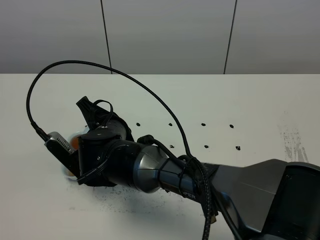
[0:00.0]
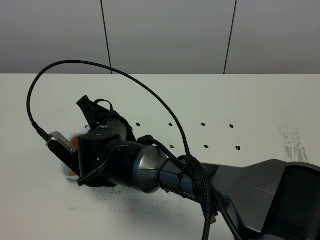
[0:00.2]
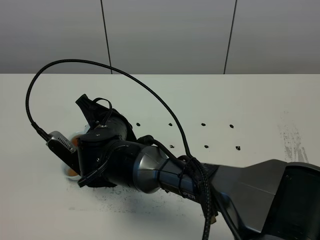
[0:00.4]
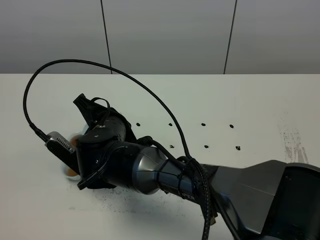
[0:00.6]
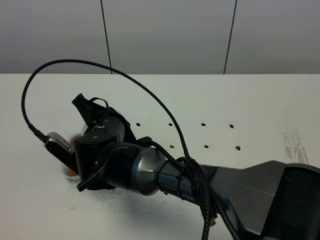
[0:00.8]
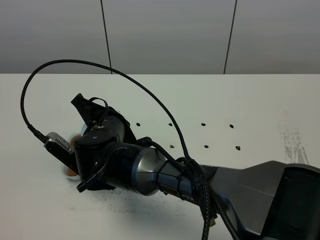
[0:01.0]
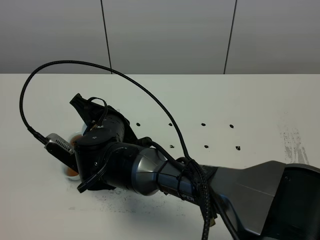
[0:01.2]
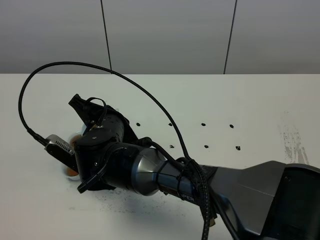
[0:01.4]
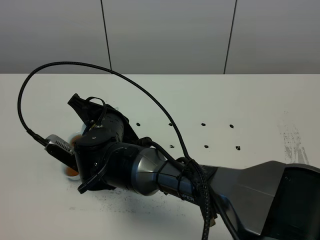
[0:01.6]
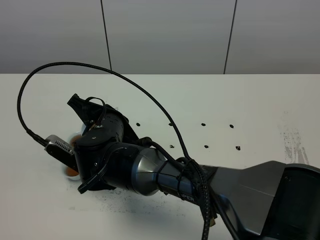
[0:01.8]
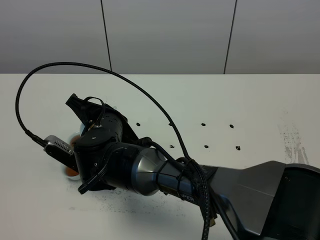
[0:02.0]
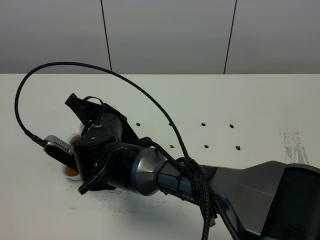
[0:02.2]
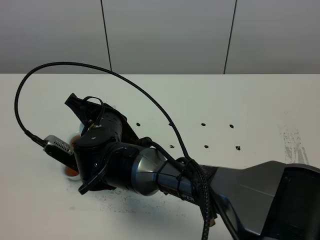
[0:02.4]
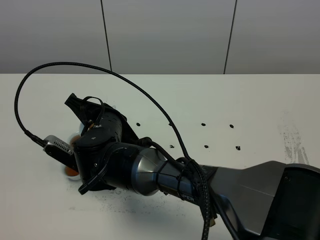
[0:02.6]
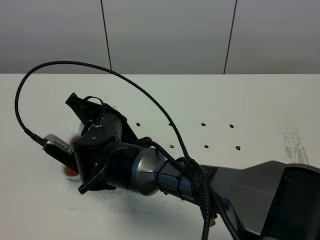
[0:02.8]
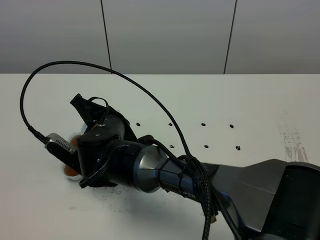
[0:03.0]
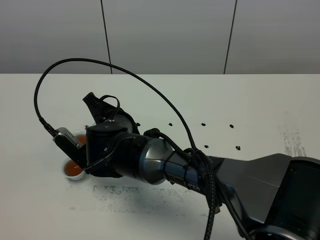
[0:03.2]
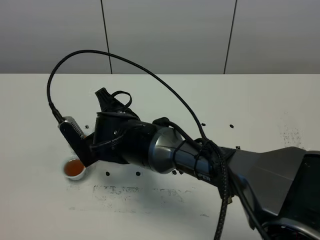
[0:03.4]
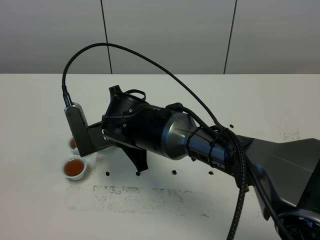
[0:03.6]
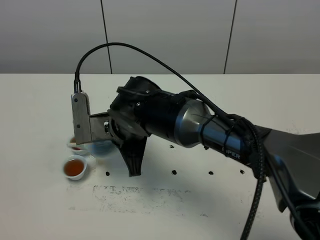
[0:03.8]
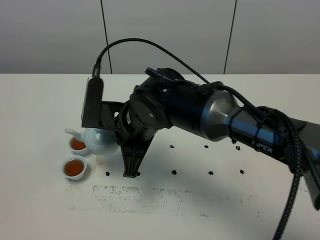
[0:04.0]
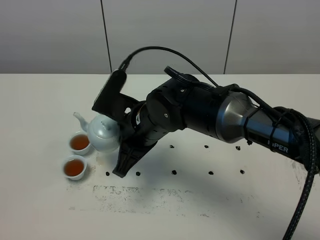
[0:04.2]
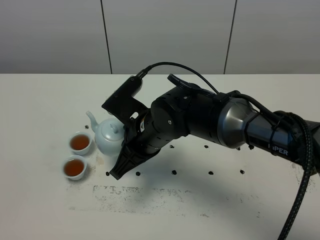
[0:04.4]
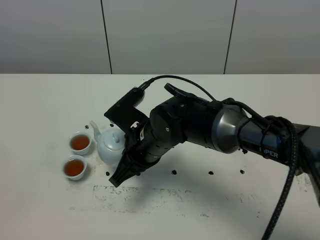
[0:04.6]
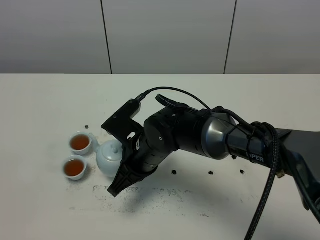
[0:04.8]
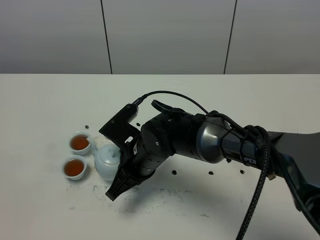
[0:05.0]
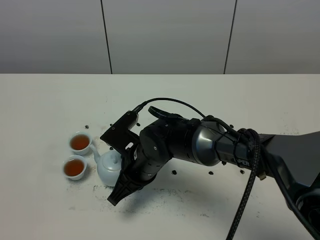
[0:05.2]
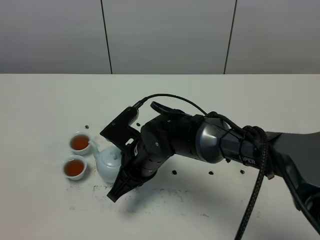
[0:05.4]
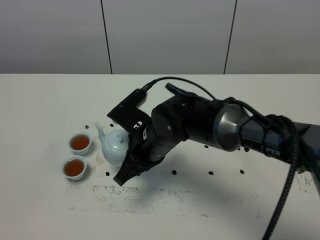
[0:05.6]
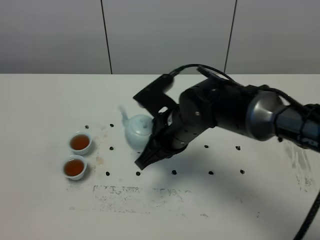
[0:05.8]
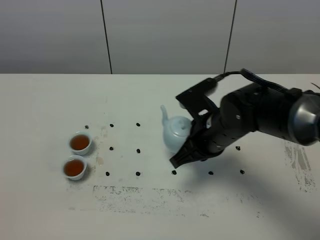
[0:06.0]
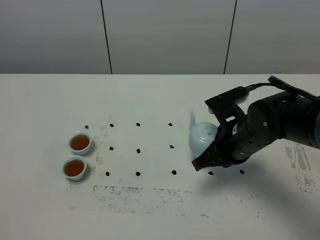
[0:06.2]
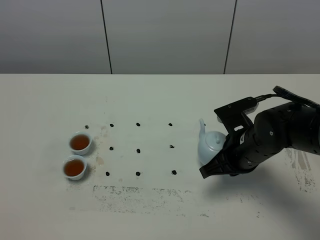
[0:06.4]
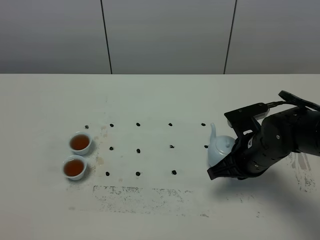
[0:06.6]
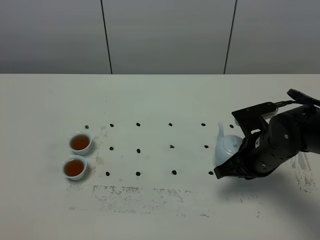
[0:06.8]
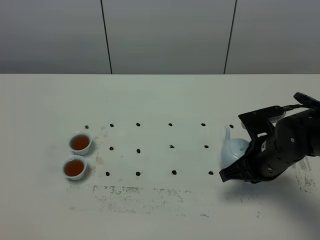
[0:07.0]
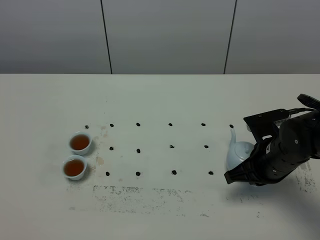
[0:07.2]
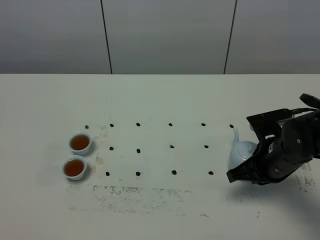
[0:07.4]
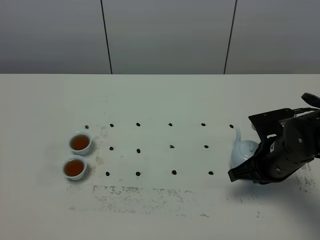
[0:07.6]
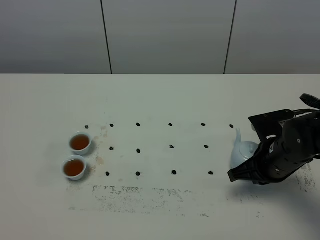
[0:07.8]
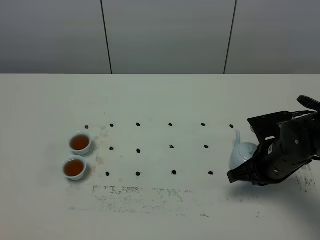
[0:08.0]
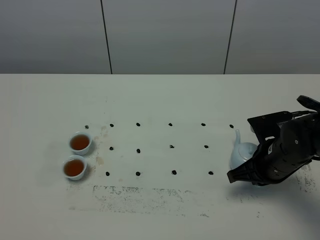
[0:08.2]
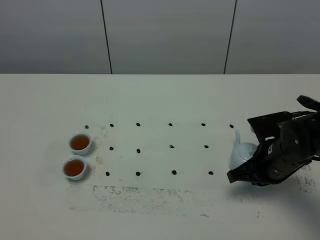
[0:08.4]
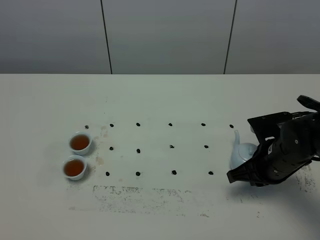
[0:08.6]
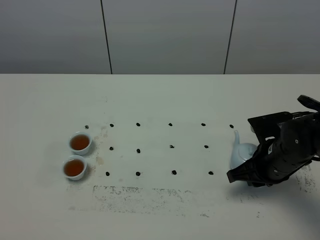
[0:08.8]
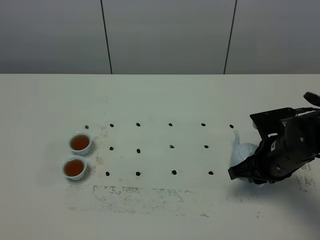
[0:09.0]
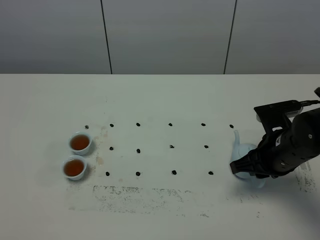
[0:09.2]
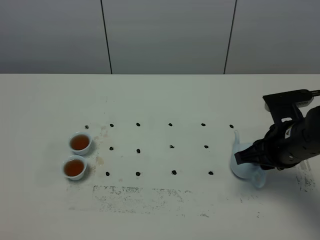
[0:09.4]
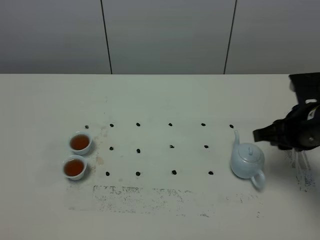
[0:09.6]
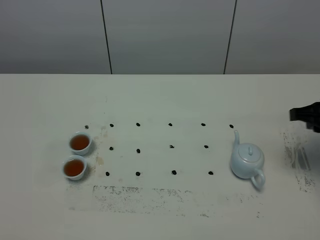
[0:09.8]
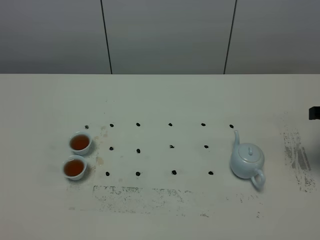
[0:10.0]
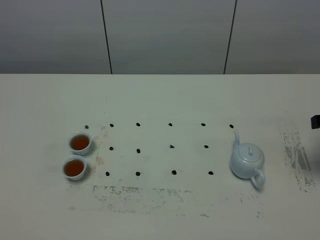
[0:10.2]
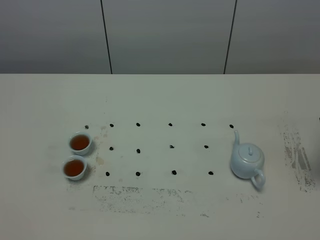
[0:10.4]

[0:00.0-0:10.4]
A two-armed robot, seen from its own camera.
Task of the whole recording: grasp the blue porcelain teapot and pour the tea into the two blue porcelain teacups one by one, put the blue porcelain teapot back in its original place.
Step, 0:00.0 to 0:03.6: Pour tea into the teacup with the right gripper.
0:00.0 to 0:01.4: The grippers make only small movements.
0:01.4 to 0:03.0: Both grippers stay about where they are.
0:03.0 to 0:04.4: The right gripper travels to the right by about 10 cm.
0:04.4 to 0:06.0: The right gripper heads to the right, covering some 10 cm.
0:06.0 to 0:07.4: The right gripper heads to the right, covering approximately 10 cm.
0:07.4 to 0:09.0: The right gripper opens its fingers.
0:09.0 to 0:10.4: The right gripper is displaced to the right and upward by roughly 15 cm.
